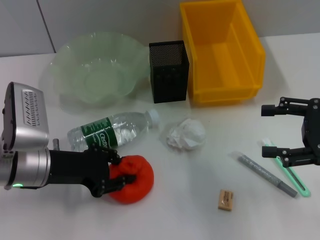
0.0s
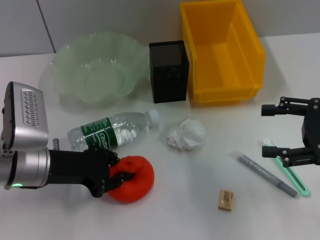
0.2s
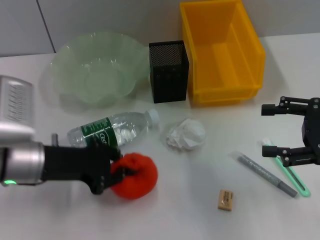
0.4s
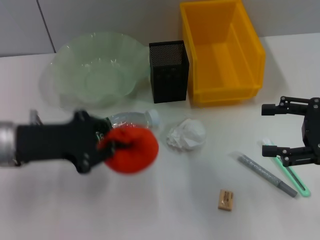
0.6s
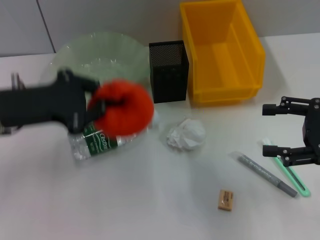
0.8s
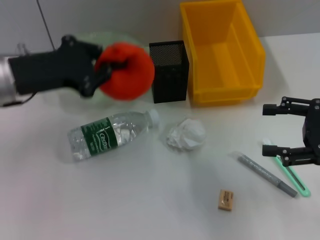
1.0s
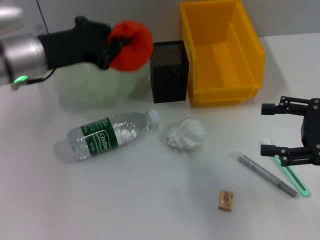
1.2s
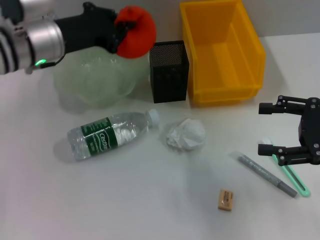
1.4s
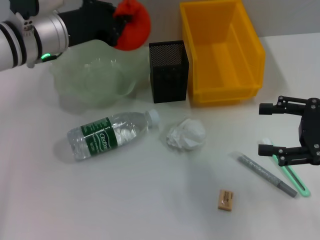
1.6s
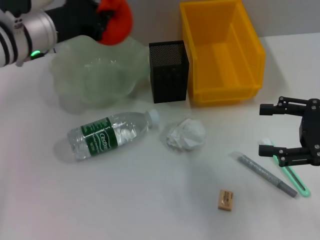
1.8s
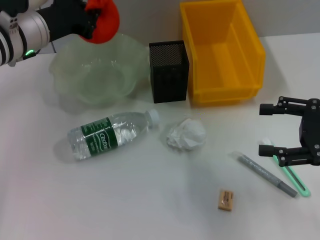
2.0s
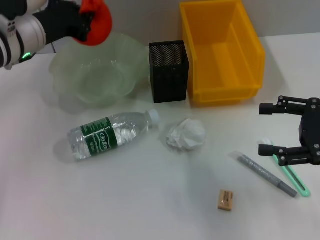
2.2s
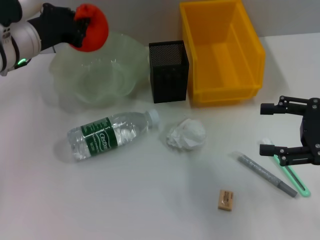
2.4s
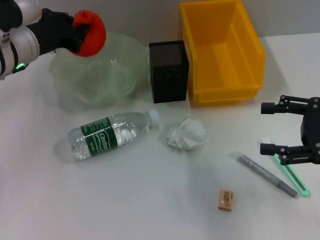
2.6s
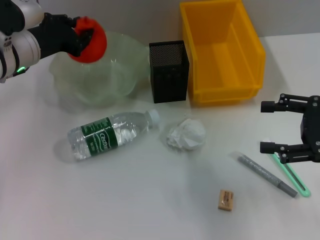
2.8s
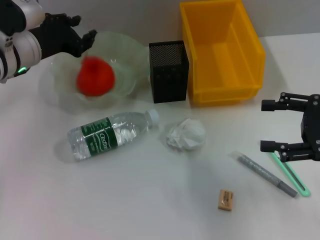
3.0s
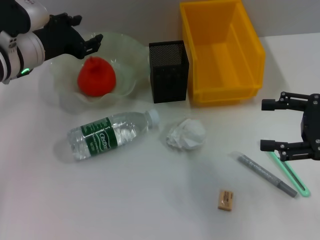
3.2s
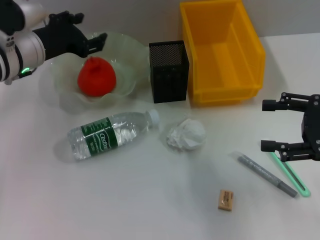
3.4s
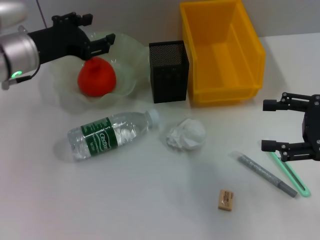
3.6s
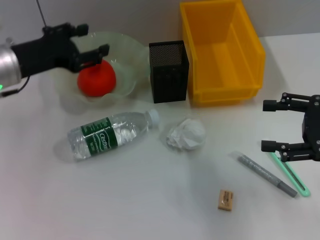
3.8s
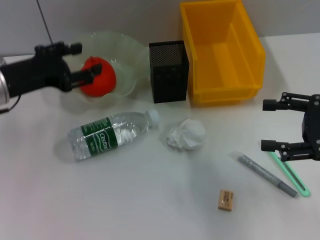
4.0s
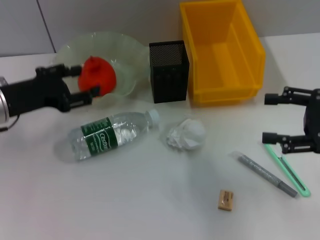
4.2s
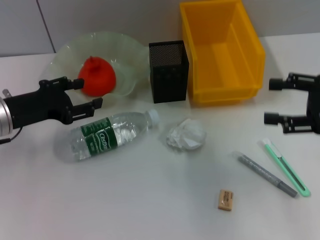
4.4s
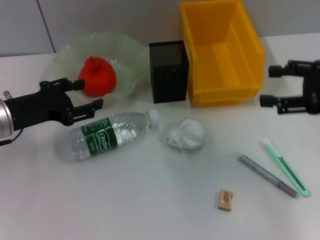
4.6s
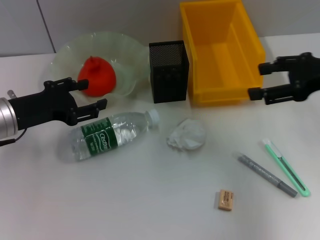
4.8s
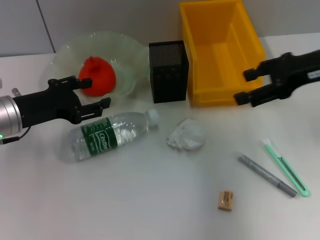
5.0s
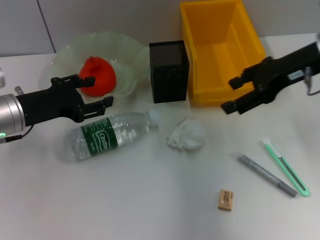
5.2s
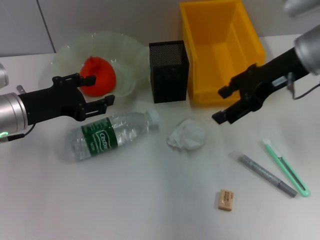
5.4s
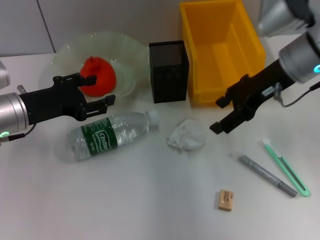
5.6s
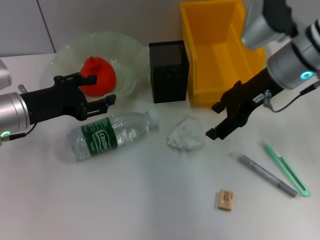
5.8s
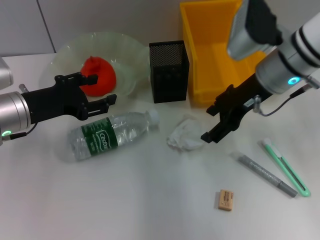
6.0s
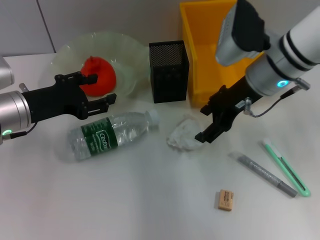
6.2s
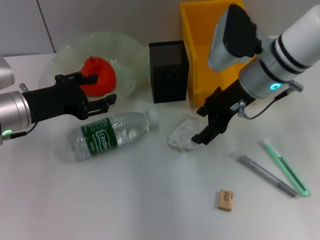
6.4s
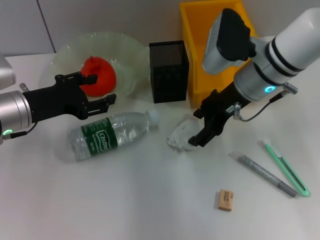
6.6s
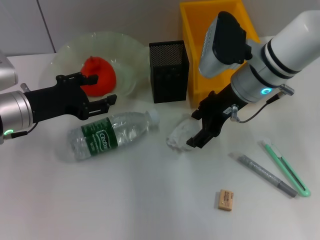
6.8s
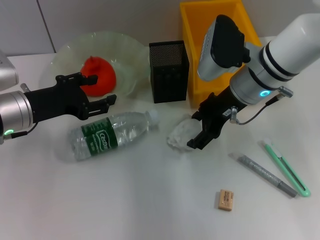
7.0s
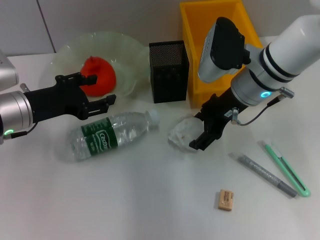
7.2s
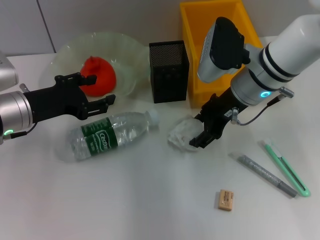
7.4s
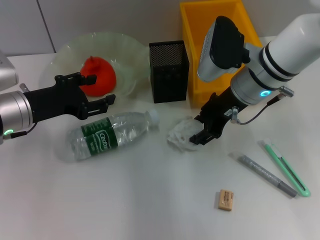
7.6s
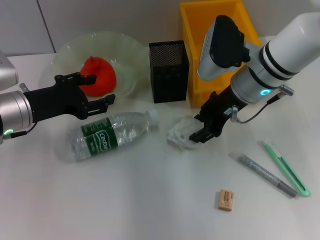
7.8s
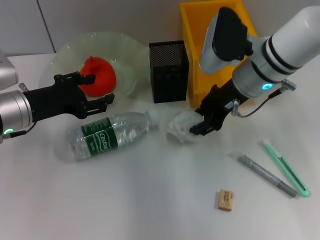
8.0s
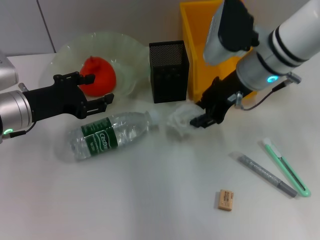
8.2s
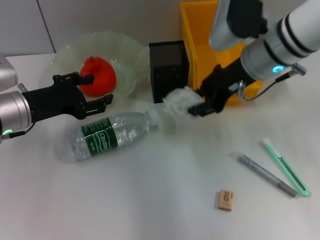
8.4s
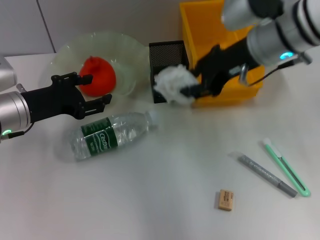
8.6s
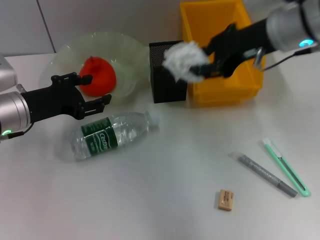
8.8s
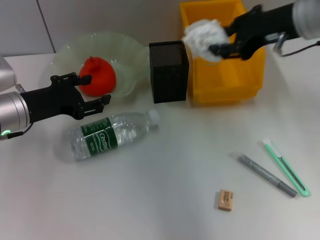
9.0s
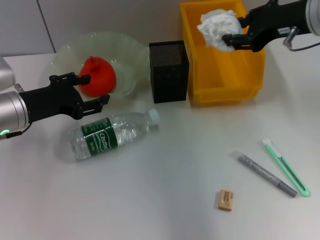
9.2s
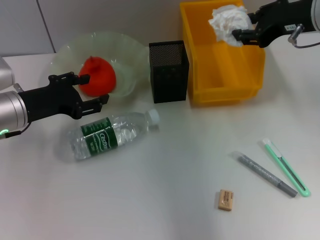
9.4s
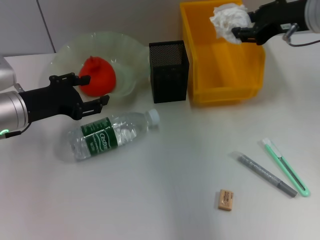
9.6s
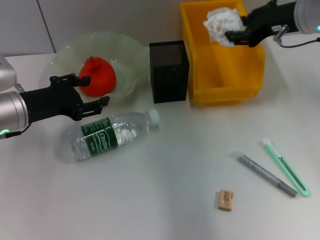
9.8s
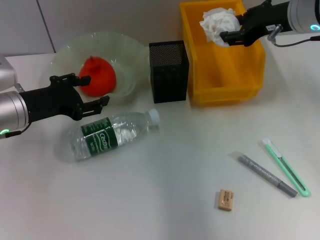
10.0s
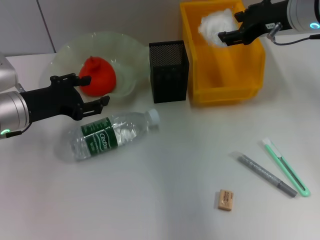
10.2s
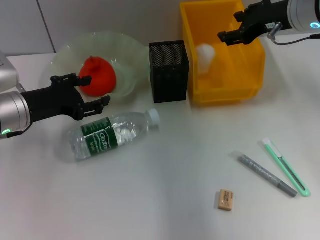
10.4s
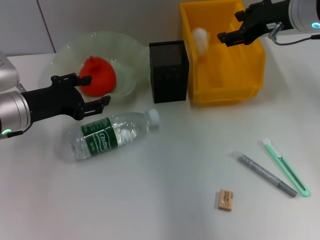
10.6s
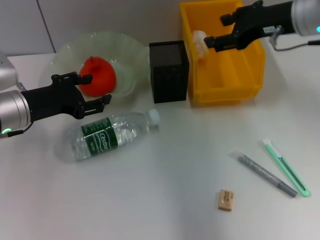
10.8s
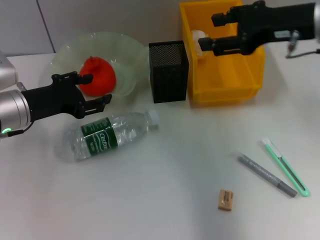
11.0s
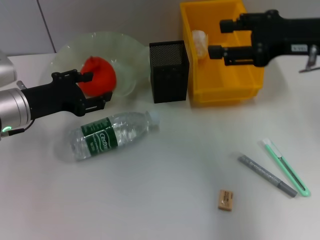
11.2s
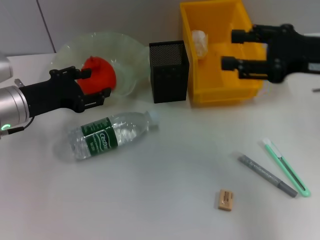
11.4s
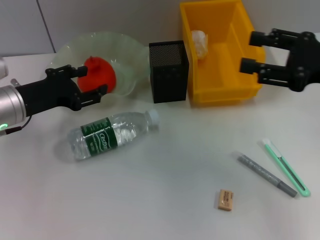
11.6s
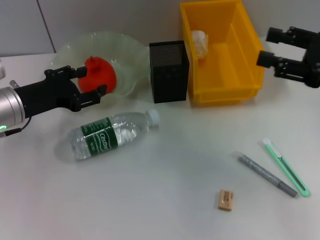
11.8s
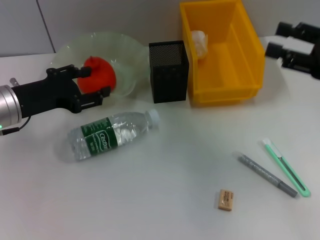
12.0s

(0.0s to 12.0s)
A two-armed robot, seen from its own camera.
Step, 0.4s - 3.2s: Place the orange into the fruit bowl with the left hand.
Step, 3.4s - 7.6s: Grab the paper ball with the right hand.
Step, 7.8s - 10.8s: Place the paper ball into the trash can with the right hand.
0.0s - 1.6s: The left gripper travels forward and upward by about 15 cm, and closes up.
1.6s - 3.0s: The grippers make only small movements.
3.0s - 4.4s: The left gripper moves backward and to the left, about 10 cm, and opens its fingers.
4.4s - 6.0s: The right gripper is displaced to the left and forward by some 20 cm.
6.0s - 7.6s: There are only small adjustments of the grippers.
7.6s - 9.0s: The right gripper shifts roughly 10 cm upward and to the right, and closes up.
9.0s - 10.4s: The right gripper ends up roughly 5 cm from where it was.
10.4s - 12.0s: The right gripper goes roughly 15 cm backward and to the right.

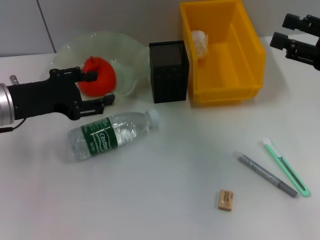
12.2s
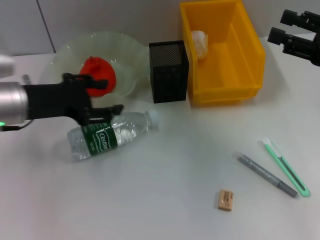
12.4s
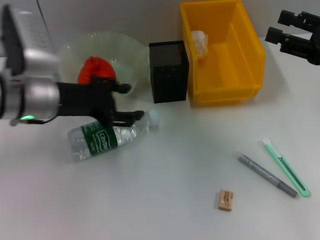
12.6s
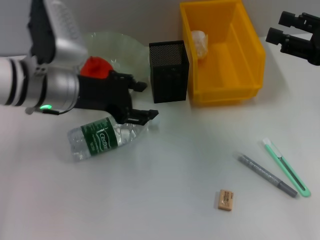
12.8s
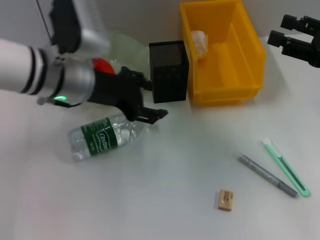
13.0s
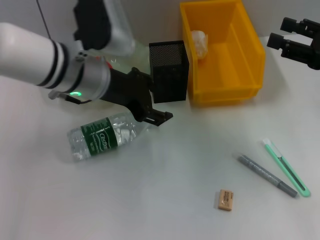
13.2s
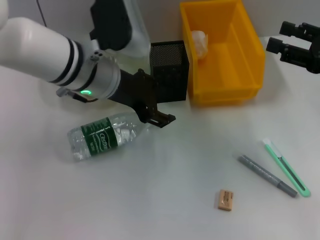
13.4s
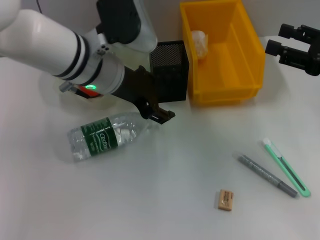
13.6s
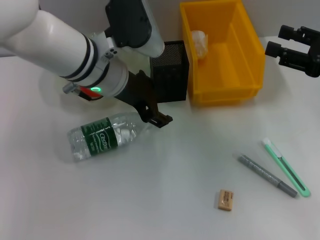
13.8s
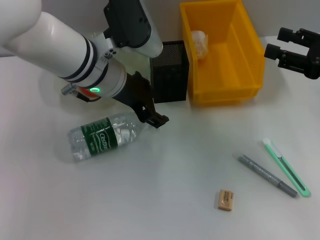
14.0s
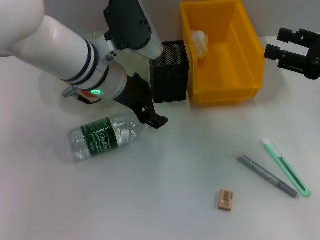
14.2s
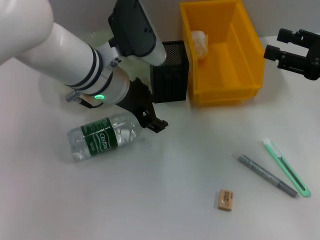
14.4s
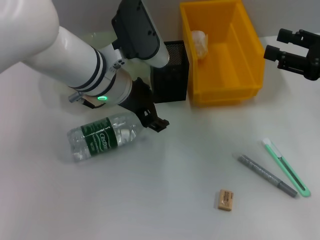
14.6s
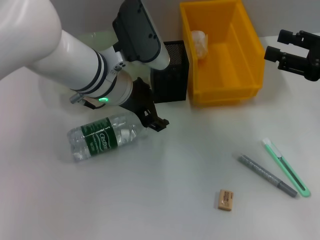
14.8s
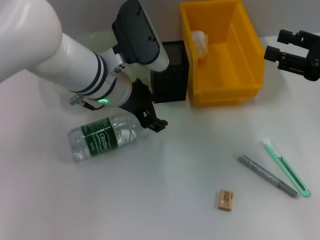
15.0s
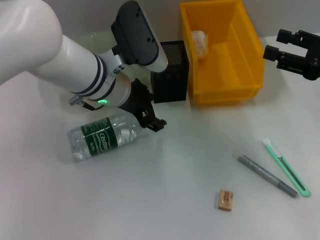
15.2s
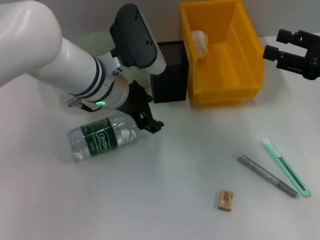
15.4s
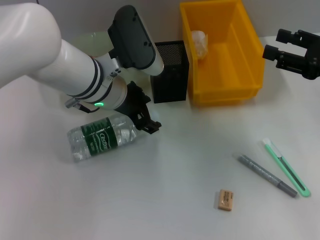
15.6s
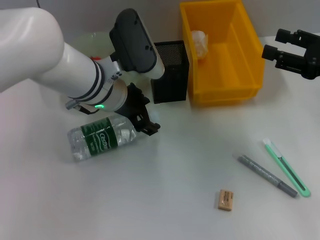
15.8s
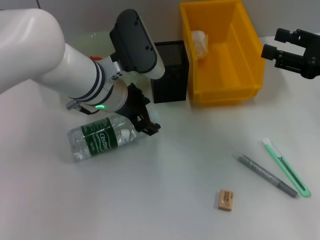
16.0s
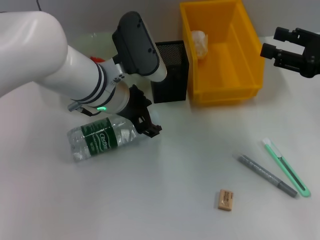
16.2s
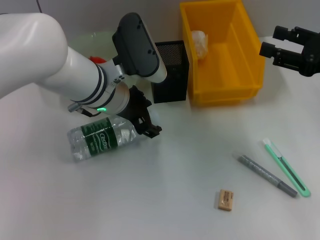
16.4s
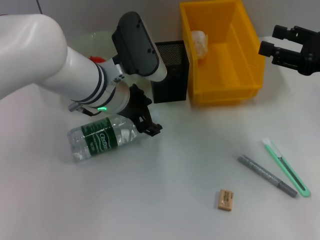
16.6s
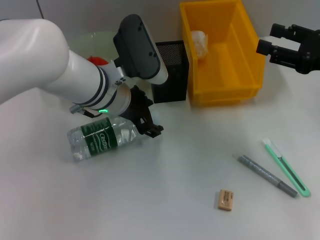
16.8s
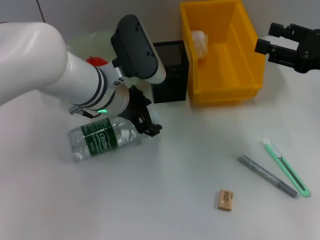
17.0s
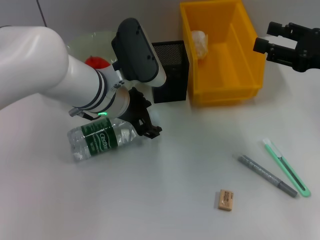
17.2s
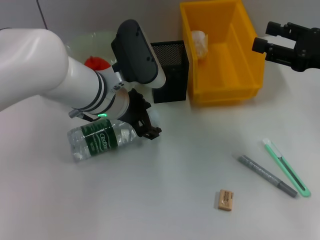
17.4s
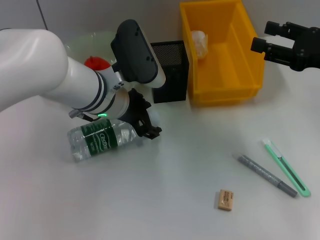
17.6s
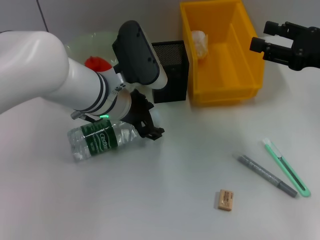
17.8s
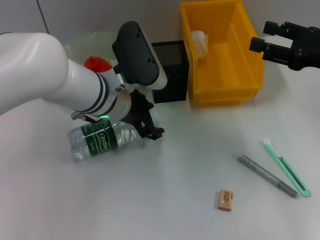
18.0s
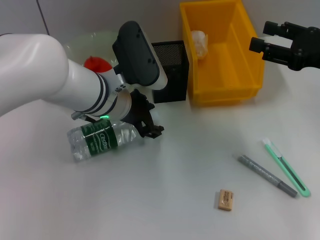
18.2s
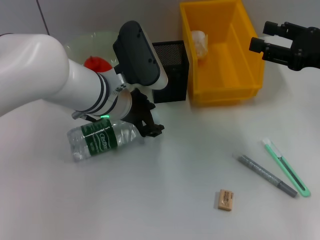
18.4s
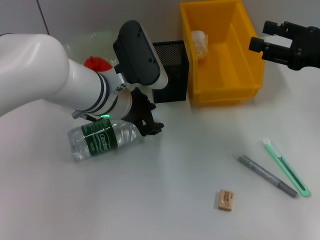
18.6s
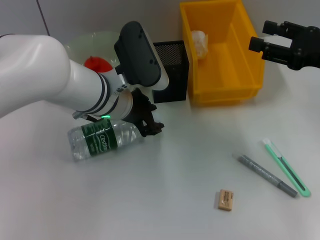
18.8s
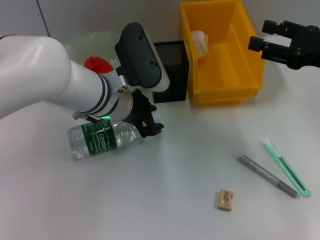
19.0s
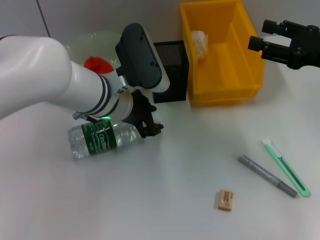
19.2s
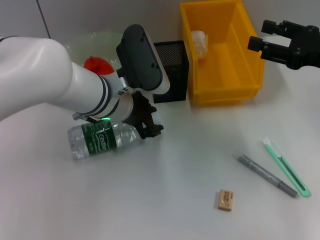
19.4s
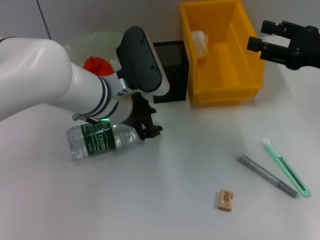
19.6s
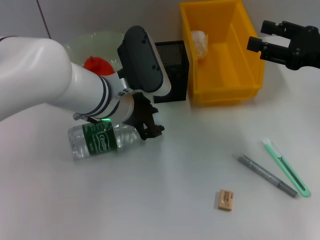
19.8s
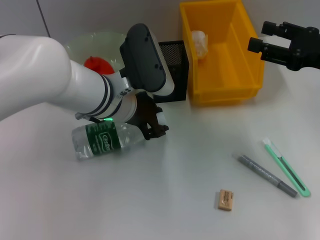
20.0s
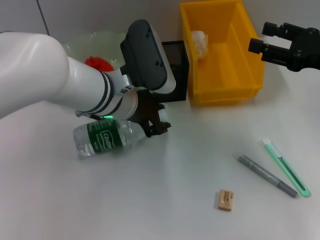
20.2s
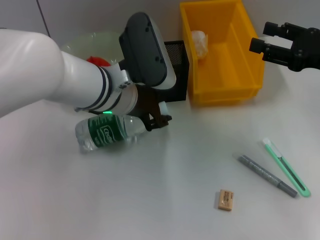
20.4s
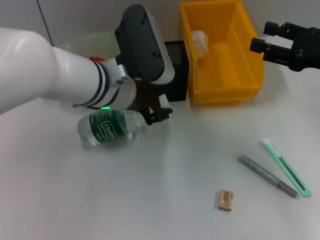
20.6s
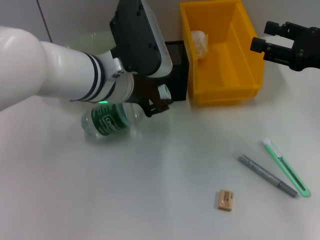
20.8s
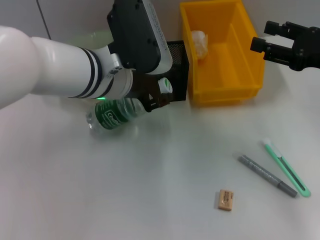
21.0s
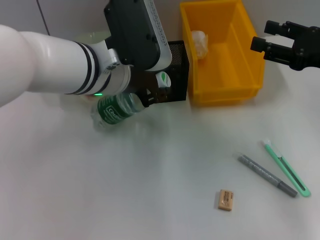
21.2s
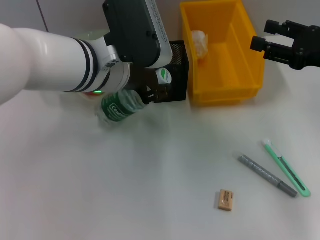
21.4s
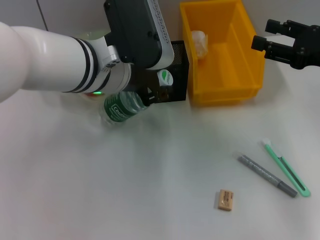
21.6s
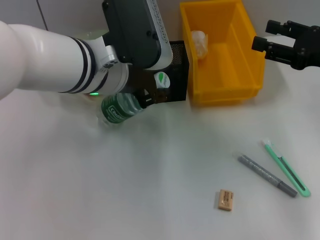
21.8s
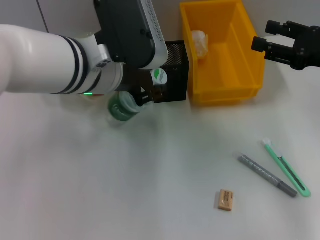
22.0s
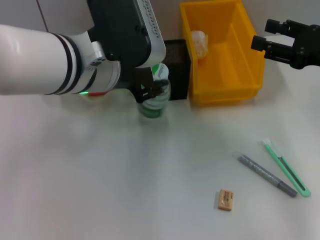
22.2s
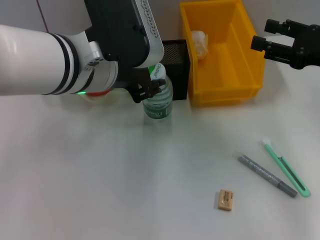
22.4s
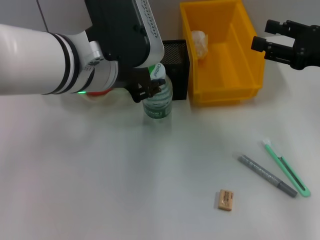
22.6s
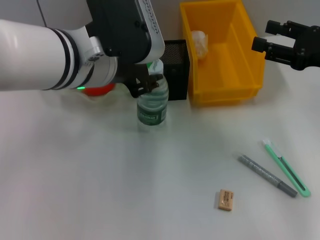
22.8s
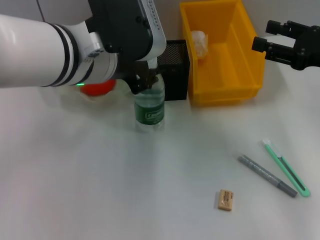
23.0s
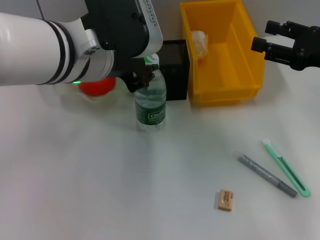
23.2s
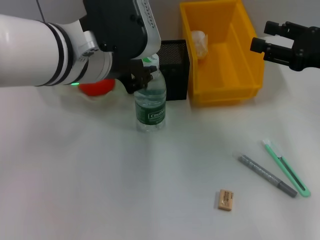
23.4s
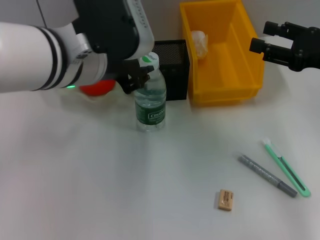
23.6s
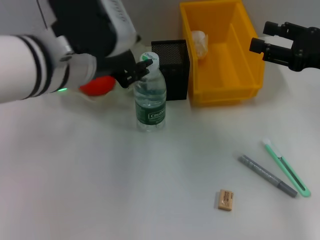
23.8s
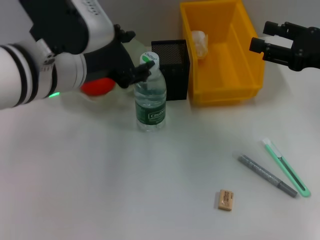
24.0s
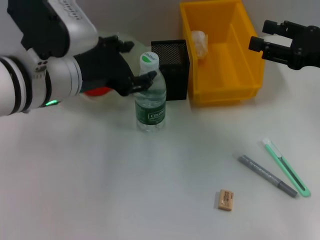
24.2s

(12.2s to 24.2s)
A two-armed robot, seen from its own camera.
Step, 12.2s - 19.4s: Grab the water bottle with the left hand.
12.2s - 13.8s: The left gripper goes some 15 cm to the right.
13.8s - 15.2s: There are only small adjustments of the grippers.
15.2s - 16.6s: Both grippers stay put.
16.6s - 18.2s: The grippers move only a little.
18.2s - 19.8s: Neither gripper changes place.
19.8s - 21.2s: The left gripper goes roughly 5 cm upward.
21.2s - 22.6s: There are only small adjustments of the grippers.
22.6s - 24.2s: The left gripper moves approximately 5 cm.
